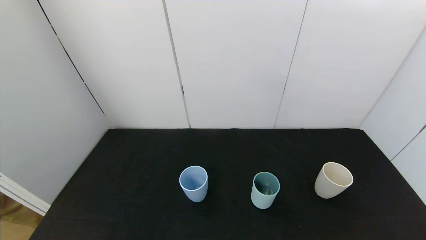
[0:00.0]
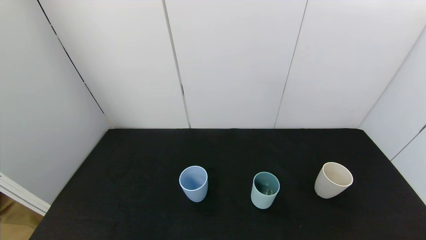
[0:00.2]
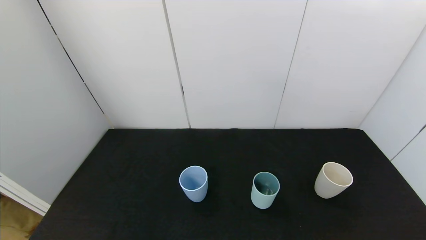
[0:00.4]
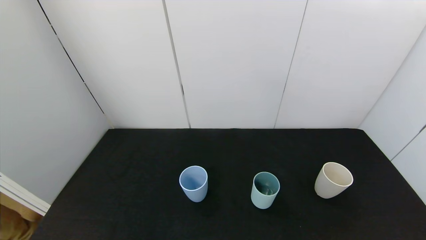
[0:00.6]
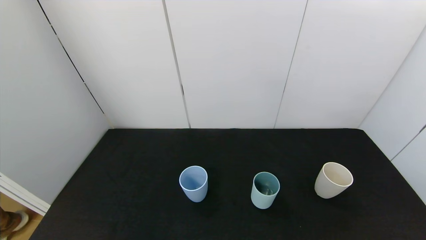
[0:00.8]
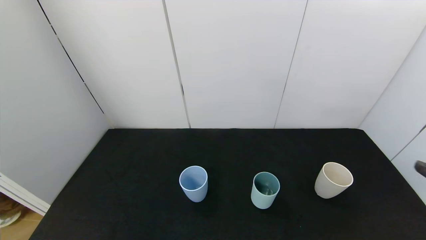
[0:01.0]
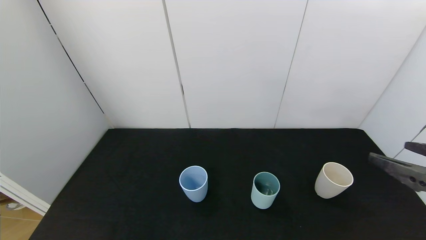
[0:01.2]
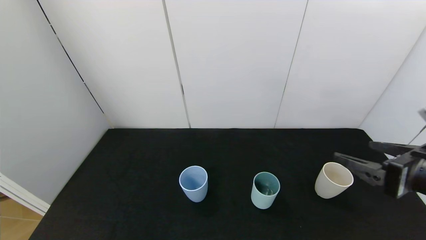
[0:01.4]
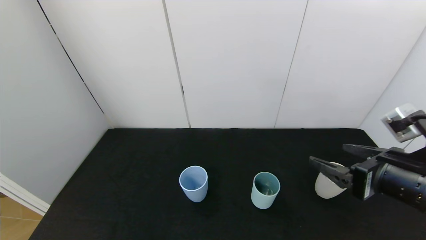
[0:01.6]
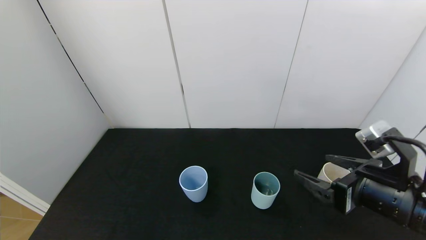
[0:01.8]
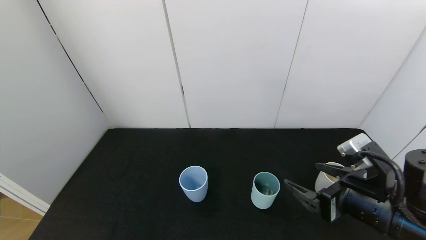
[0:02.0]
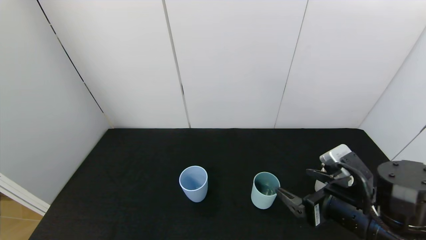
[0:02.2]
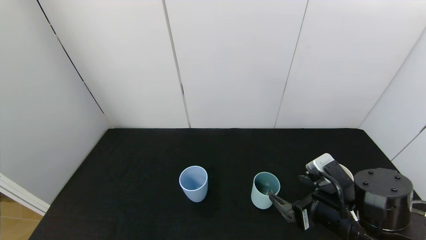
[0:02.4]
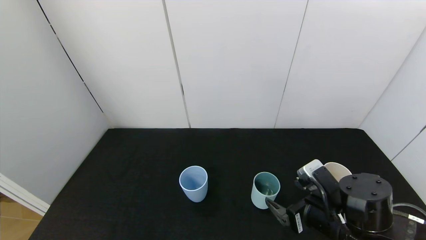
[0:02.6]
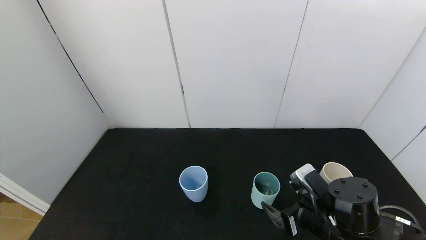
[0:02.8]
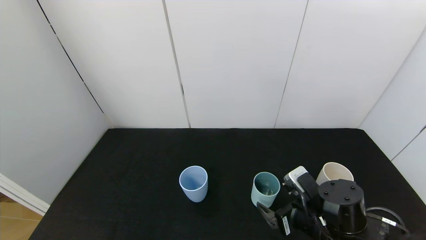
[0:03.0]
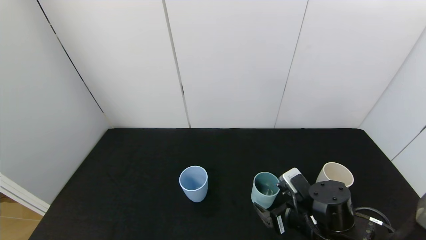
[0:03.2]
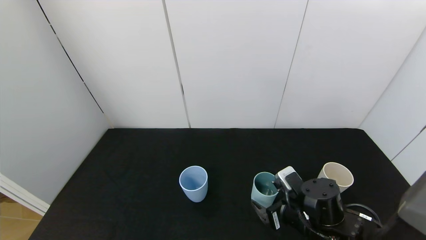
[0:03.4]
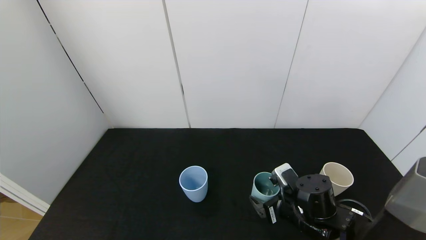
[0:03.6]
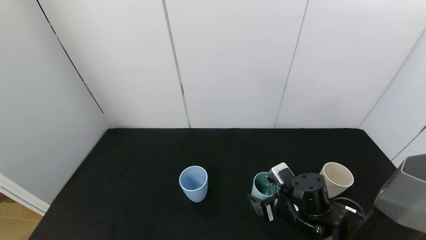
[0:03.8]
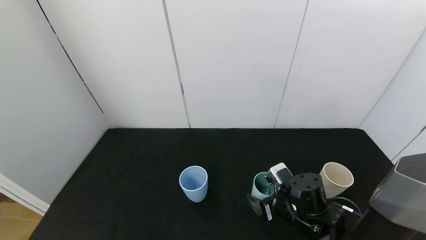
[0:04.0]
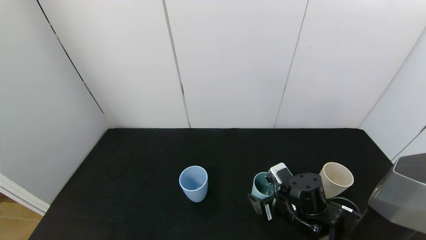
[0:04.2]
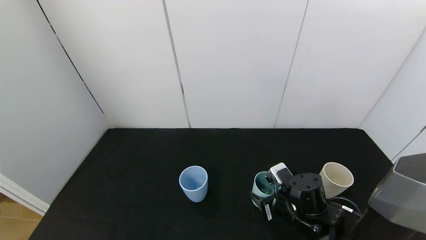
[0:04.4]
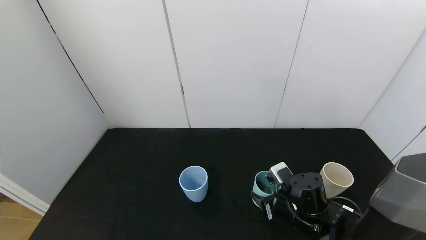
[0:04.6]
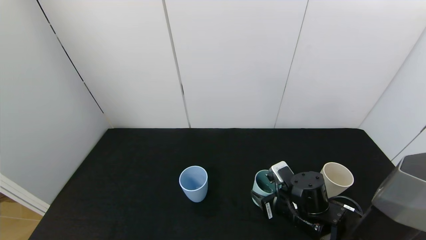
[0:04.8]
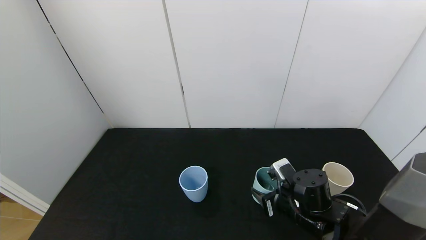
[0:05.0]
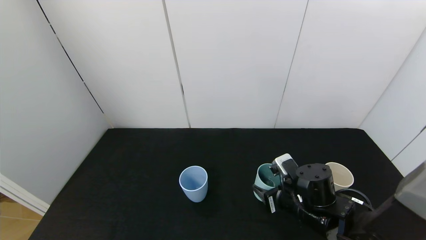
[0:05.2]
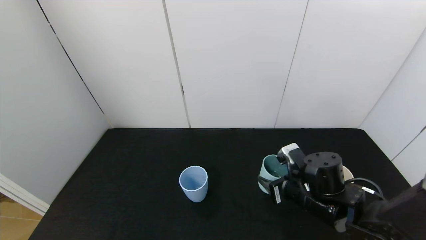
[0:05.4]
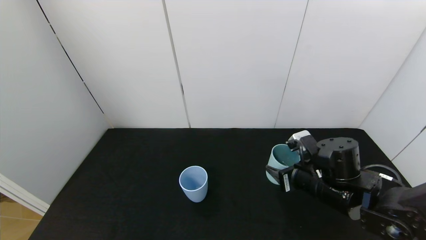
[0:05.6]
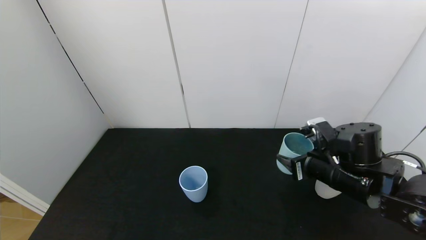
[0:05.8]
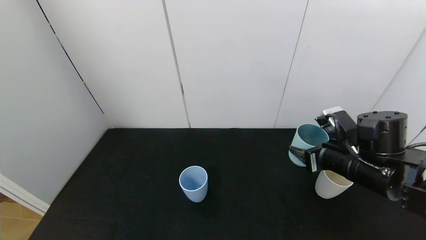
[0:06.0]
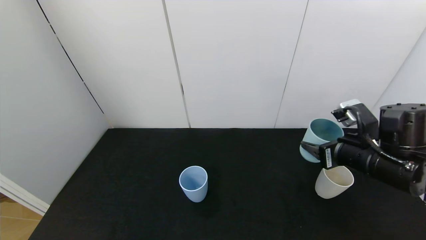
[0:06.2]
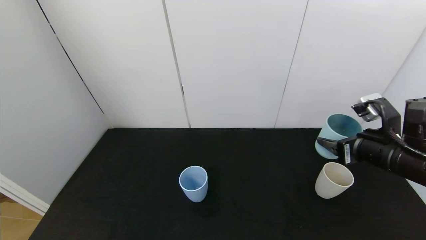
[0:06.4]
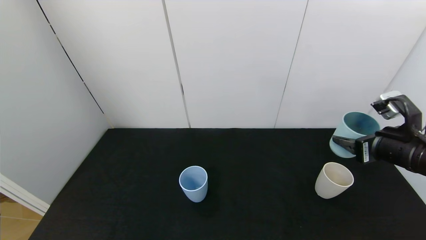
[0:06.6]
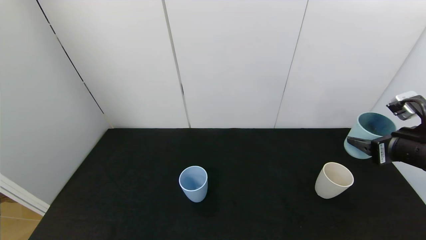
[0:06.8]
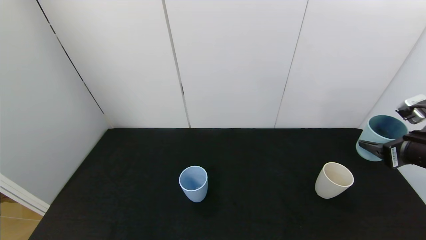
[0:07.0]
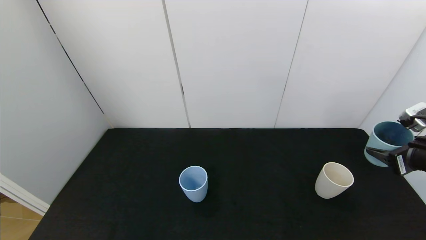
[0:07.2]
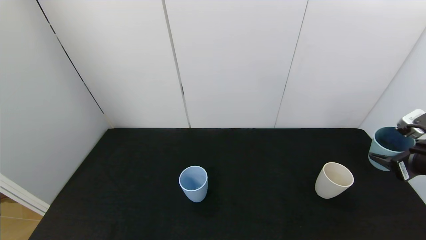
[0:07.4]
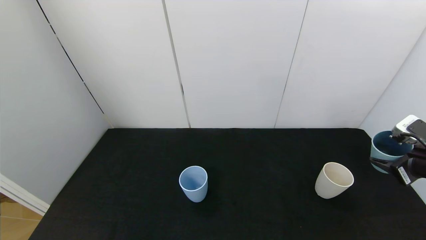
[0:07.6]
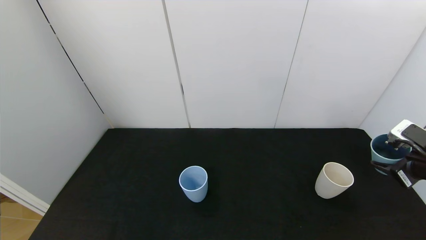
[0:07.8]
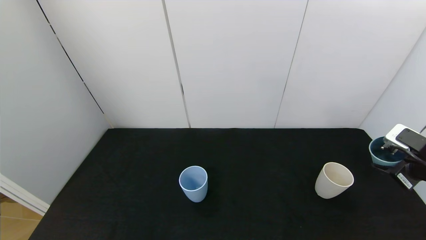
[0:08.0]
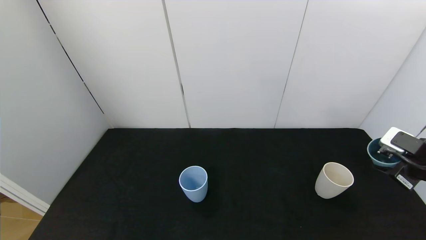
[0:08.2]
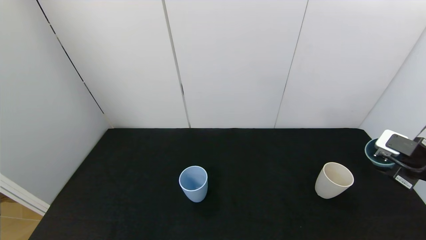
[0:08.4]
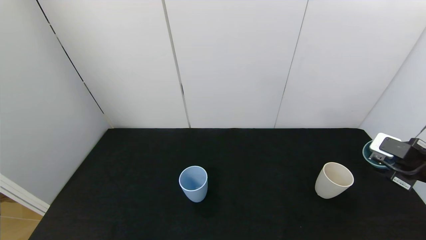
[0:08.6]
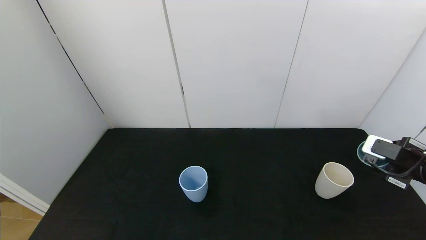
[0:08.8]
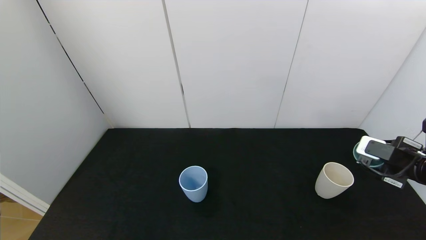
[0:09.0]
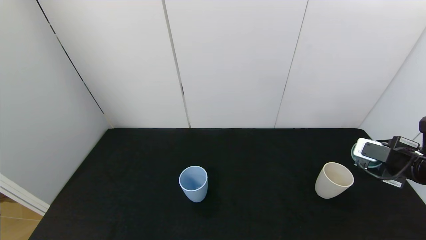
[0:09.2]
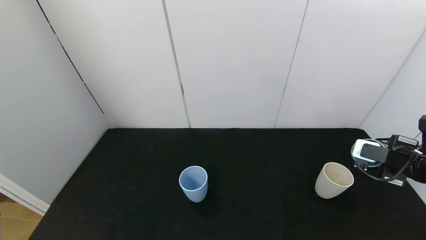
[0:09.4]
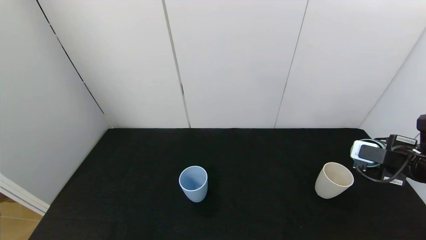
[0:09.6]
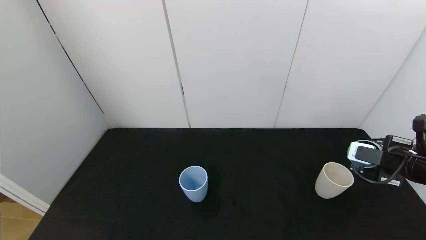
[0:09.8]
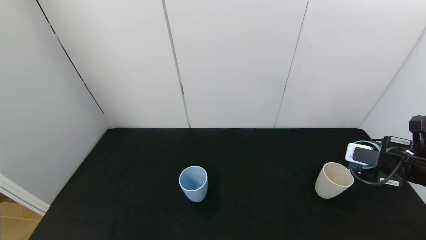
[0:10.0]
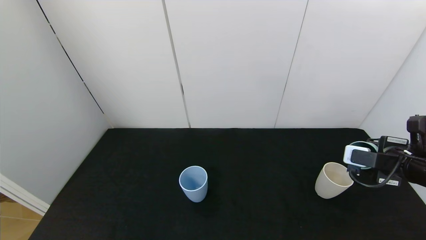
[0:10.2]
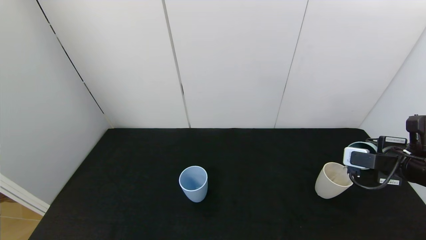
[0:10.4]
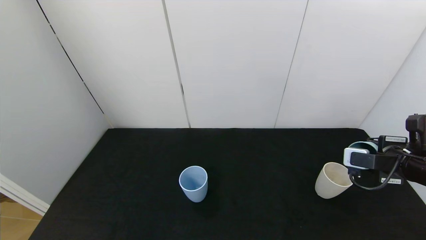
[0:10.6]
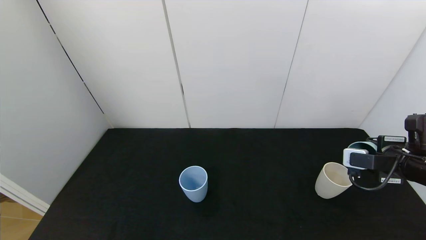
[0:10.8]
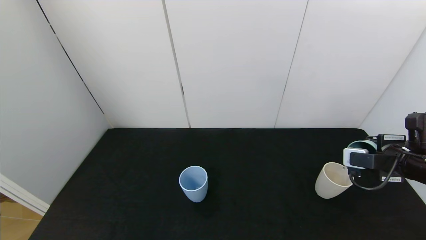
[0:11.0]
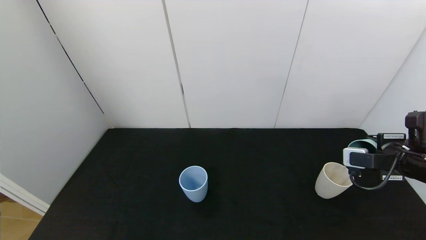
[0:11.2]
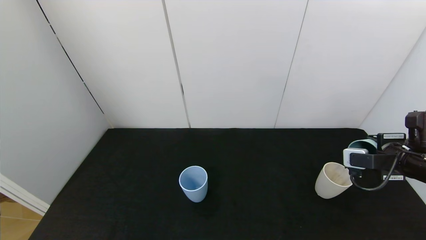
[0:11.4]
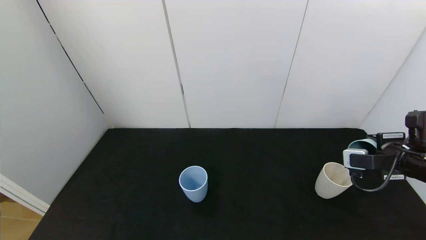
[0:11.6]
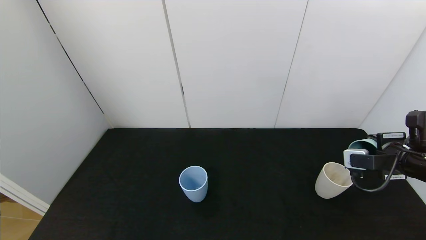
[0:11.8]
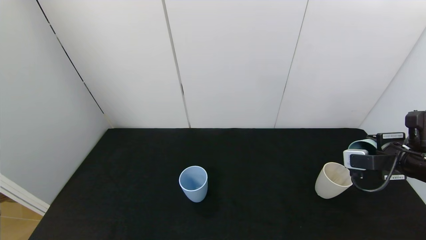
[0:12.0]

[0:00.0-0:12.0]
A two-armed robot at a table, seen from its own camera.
Task of the whole recording: use the gripper to pour the water into the other two cups on black table.
Step, 0:00.0 to 0:04.4: Grasp the green cup with the right gripper.
0:00.0 to 0:01.6: The right gripper travels forward, upward and to the left by roughly 25 cm.
0:01.6 to 0:03.0: The right gripper heads downward and to the left, covering about 15 cm.
0:03.0 to 0:04.4: The right gripper moves about 5 cm, and closes its fingers.
0:04.4 to 0:06.0: The right gripper shifts about 15 cm upward and to the right.
0:06.0 to 0:07.6: The right gripper travels to the right by approximately 15 cm.
0:09.0 to 0:10.4: The grippers stay close to where they were, moving slightly.
0:10.4 to 0:12.0: The grippers move only a little.

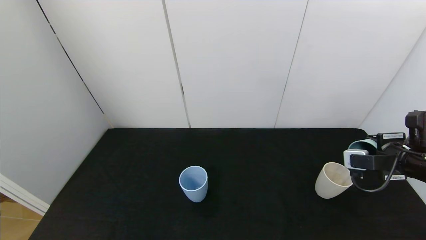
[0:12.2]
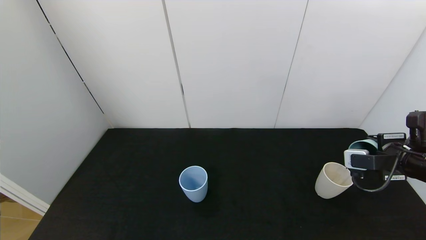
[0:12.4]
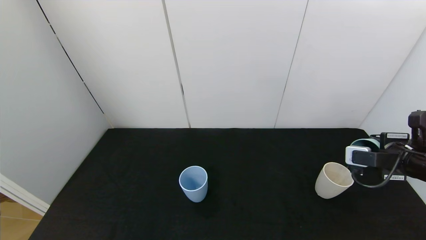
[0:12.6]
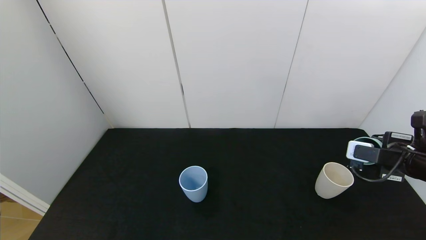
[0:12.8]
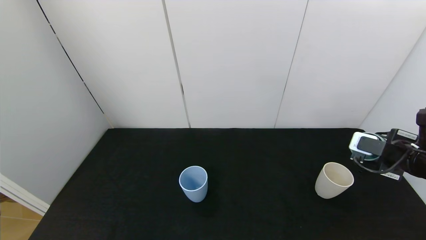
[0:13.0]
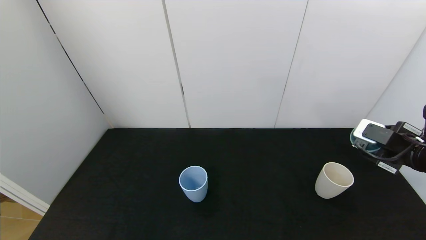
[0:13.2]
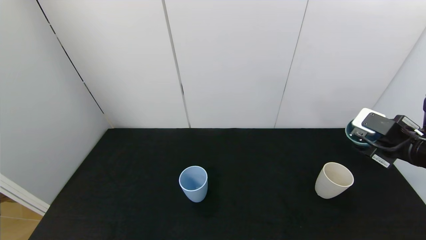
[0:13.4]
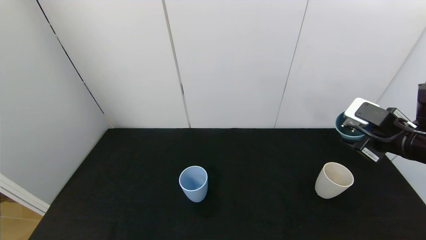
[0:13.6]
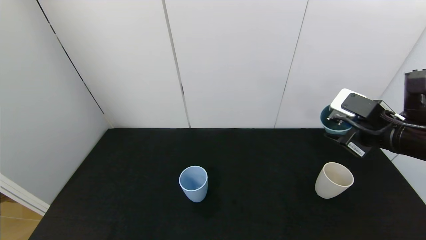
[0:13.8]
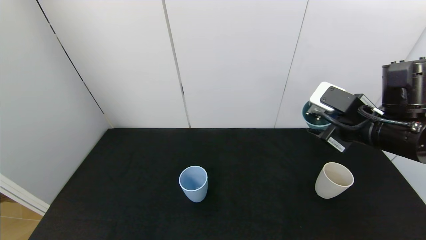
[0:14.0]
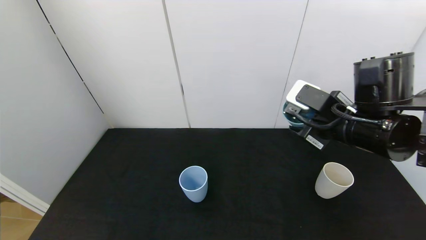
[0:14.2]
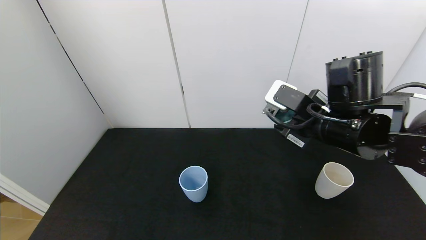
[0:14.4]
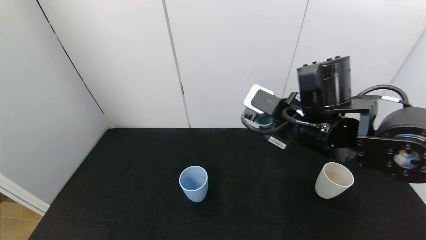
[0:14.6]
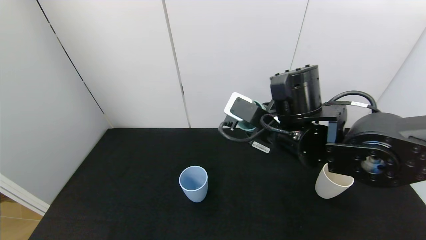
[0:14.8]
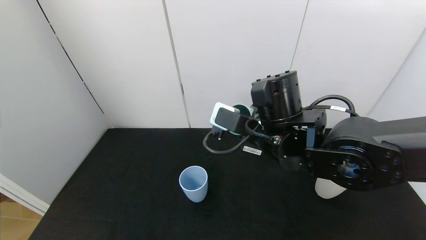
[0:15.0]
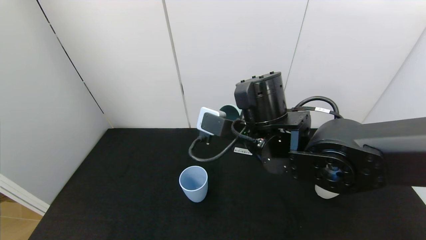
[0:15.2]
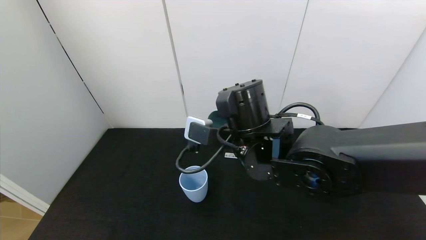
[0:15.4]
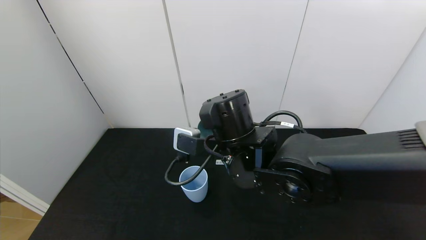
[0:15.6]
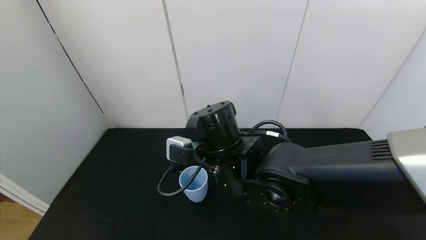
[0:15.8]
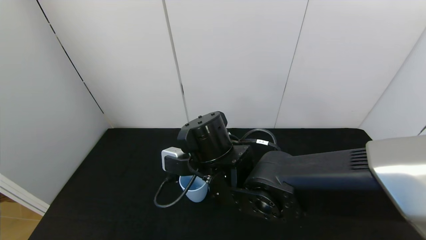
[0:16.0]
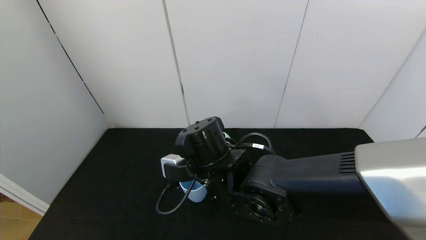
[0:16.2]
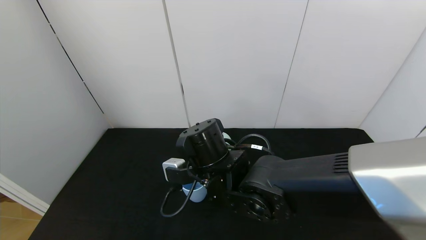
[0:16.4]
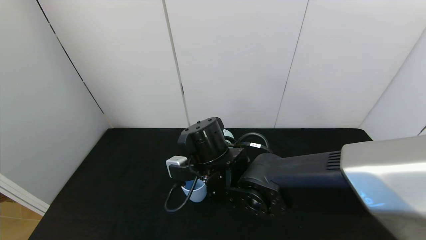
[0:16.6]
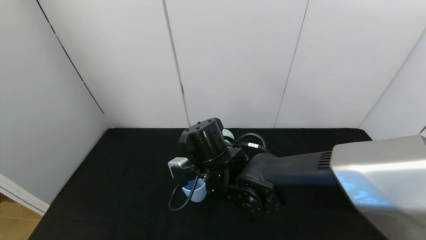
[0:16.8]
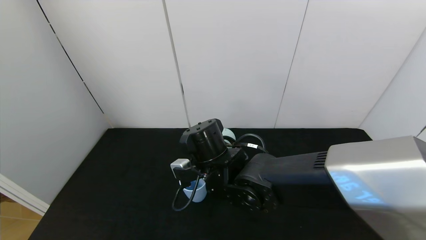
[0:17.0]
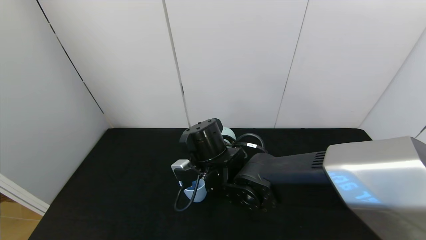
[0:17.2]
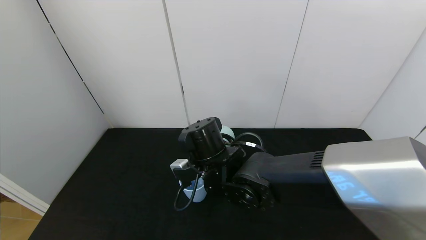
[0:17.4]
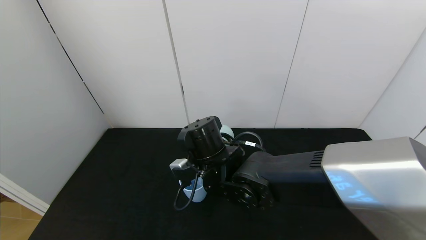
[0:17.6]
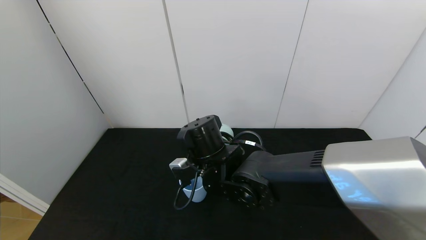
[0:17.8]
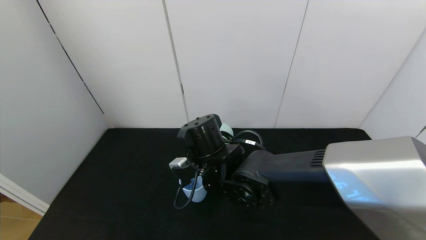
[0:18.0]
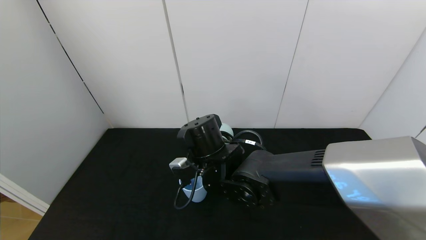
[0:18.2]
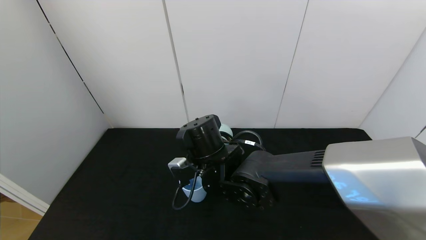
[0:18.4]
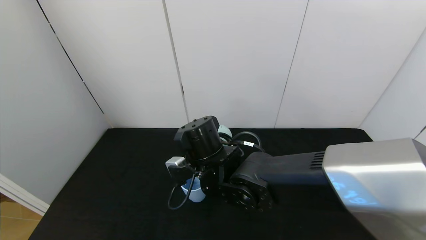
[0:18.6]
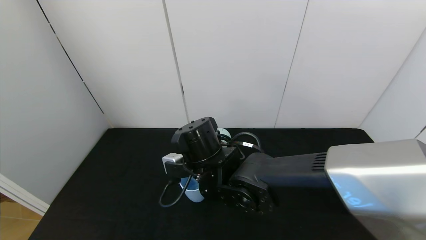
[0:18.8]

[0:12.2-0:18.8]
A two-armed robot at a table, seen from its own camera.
Task of the whole recording: use the gripper to pour the water into the other two cups on black table.
Step, 0:13.0 to 0:18.8: Pour water from green cup to blue cup with the right gripper.
0:12.2 to 0:13.8: The right gripper shifts approximately 10 cm to the left and upward.
0:13.8 to 0:15.4: The right gripper shifts some 25 cm to the left.
0:15.4 to 0:17.2: The right gripper is displaced downward and to the left by some 10 cm.
0:17.2 to 0:18.8: The grippers stay close to where they were, moving slightly.
